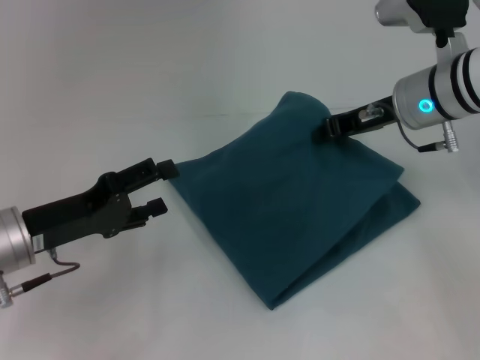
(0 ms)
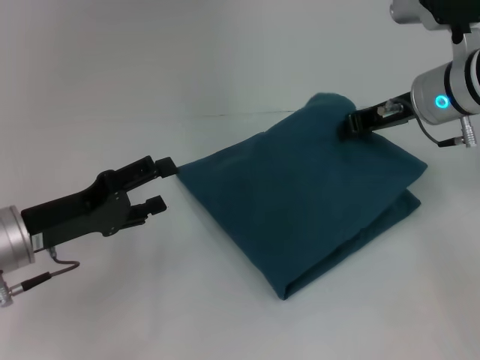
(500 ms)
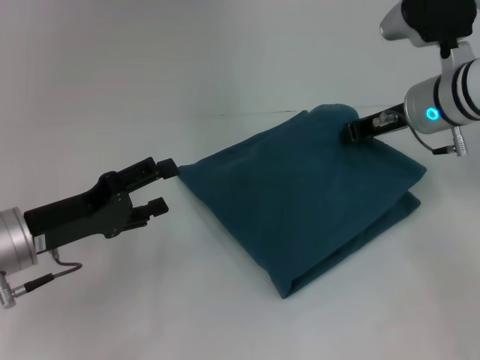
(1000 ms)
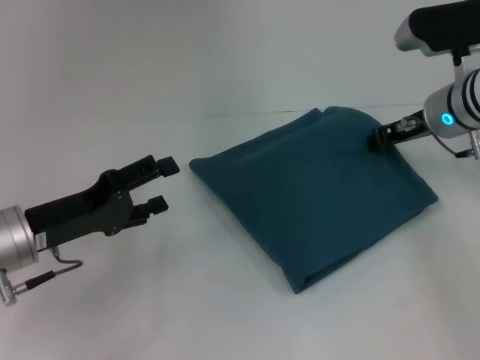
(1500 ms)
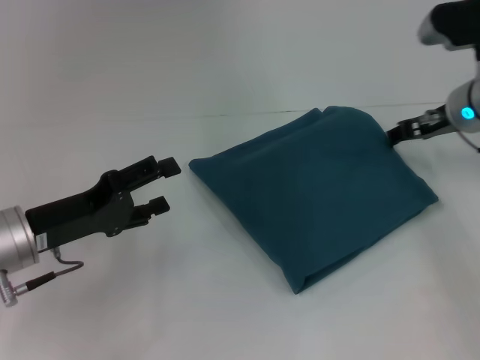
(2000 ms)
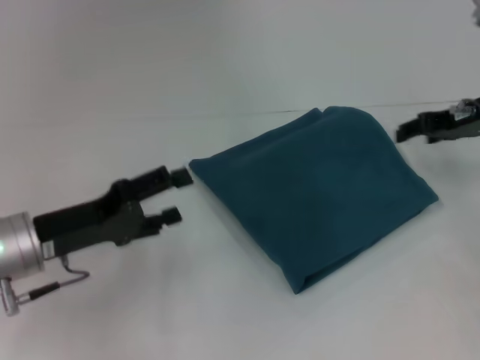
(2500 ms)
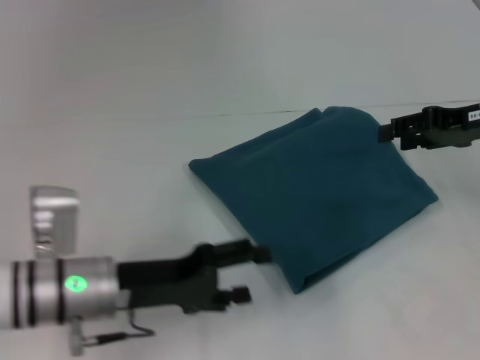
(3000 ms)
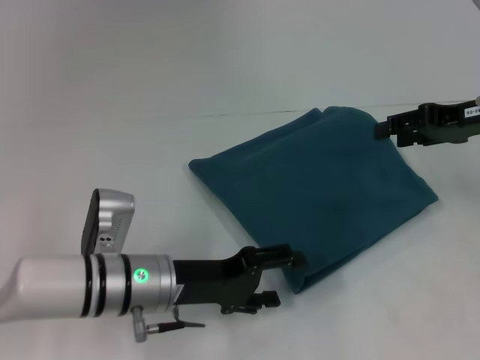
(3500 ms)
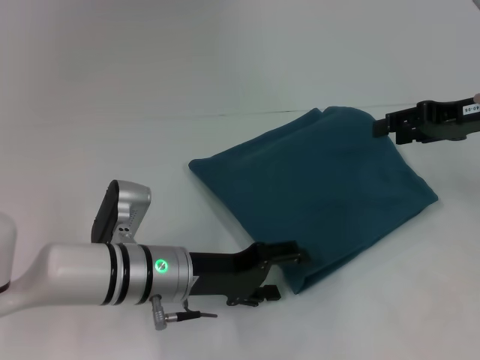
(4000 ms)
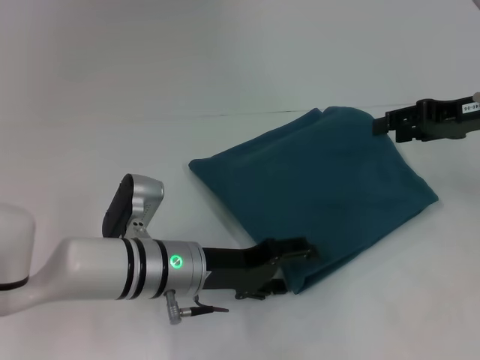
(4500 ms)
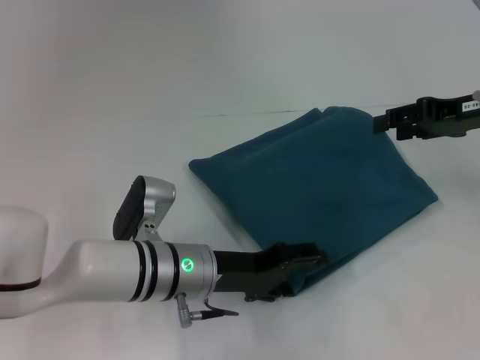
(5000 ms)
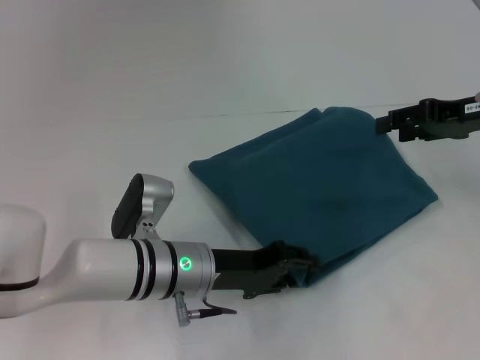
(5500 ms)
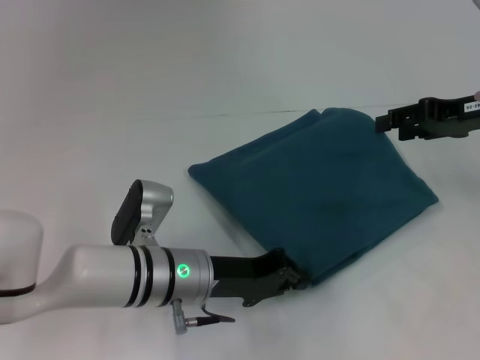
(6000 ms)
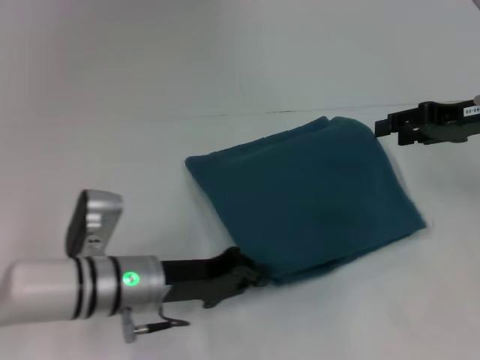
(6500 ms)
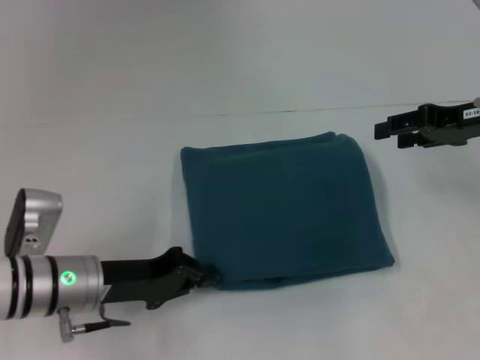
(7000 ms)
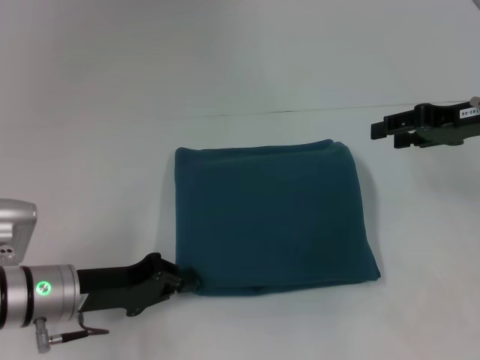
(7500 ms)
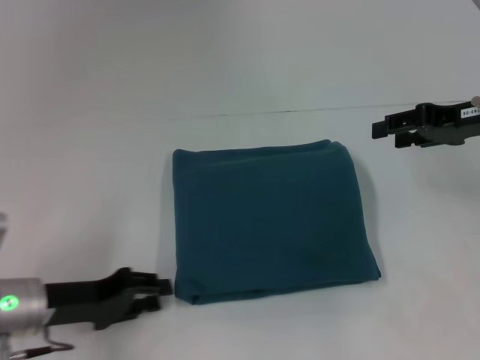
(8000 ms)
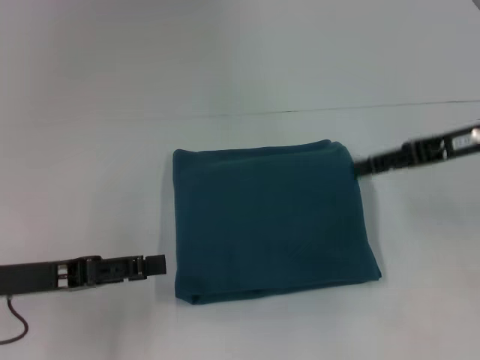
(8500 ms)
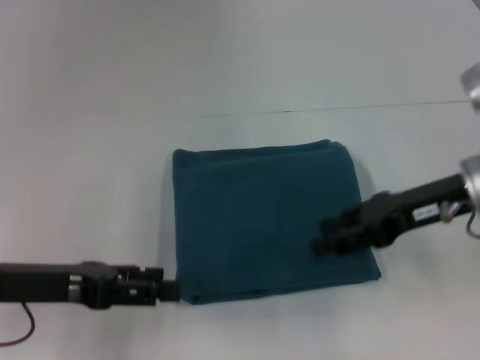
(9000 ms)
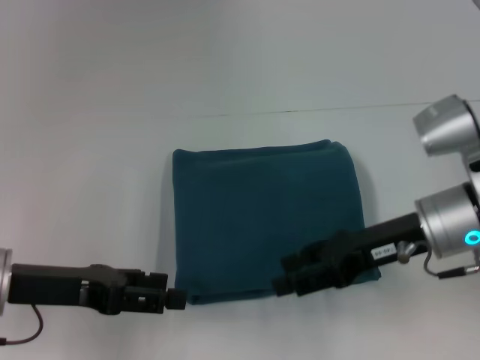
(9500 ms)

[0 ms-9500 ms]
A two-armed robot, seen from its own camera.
0 ms to 2000 ms: The right gripper shifts about 5 cm to the right, and opens.
2000 ms to 4000 ms: The right gripper heads backward, covering some 5 cm. The left gripper goes roughly 15 cm to the right.
4000 ms to 5500 ms: The grippers move only a little.
5500 ms to 7500 ms: The left gripper moves to the left, roughly 15 cm, and closes its fingers.
7500 ms to 9500 ms: The right gripper heads to the left, backward and downward, covering some 15 cm. Meanwhile the left gripper goes about 5 cm upward, and opens.

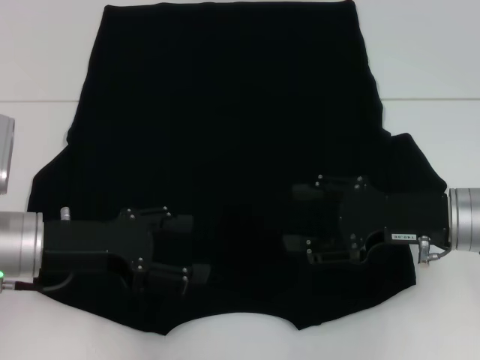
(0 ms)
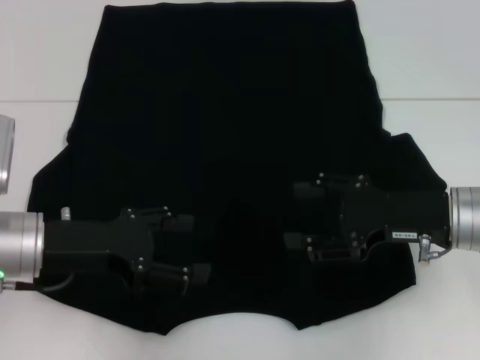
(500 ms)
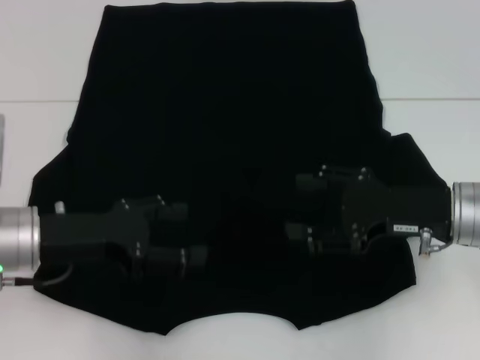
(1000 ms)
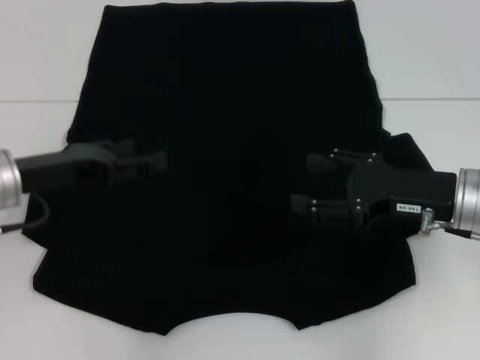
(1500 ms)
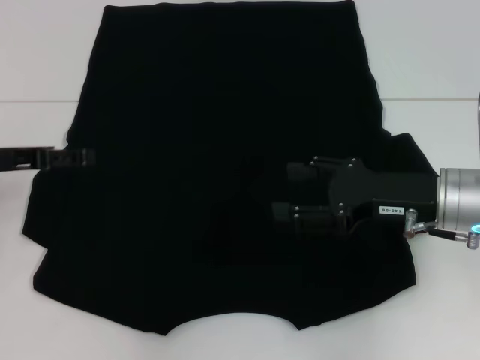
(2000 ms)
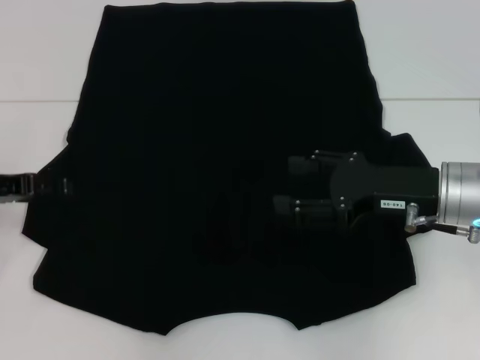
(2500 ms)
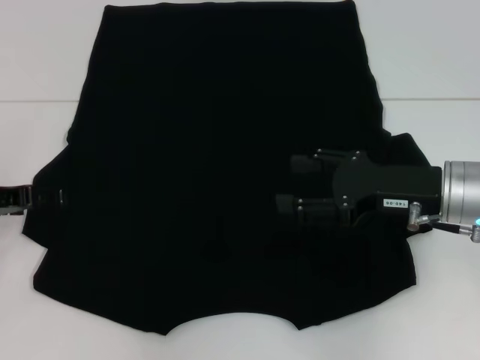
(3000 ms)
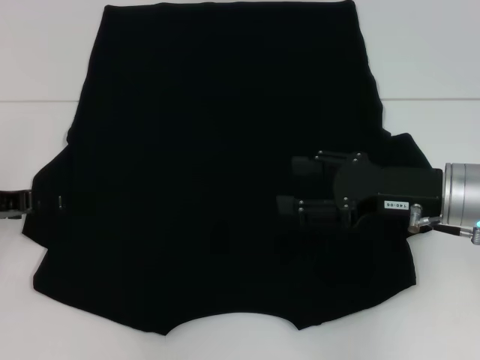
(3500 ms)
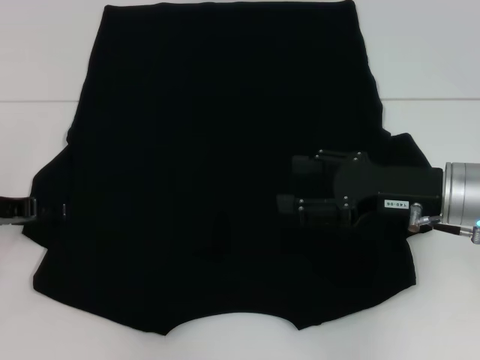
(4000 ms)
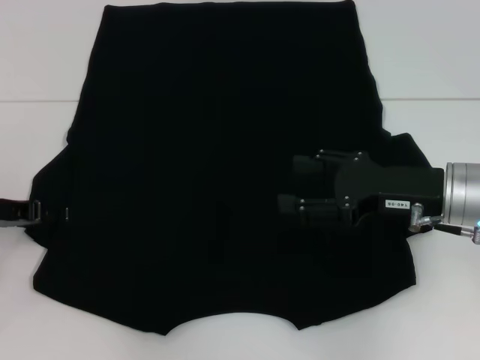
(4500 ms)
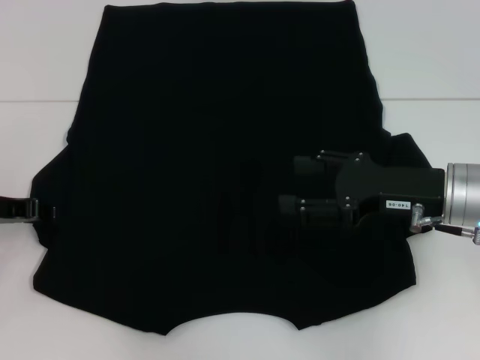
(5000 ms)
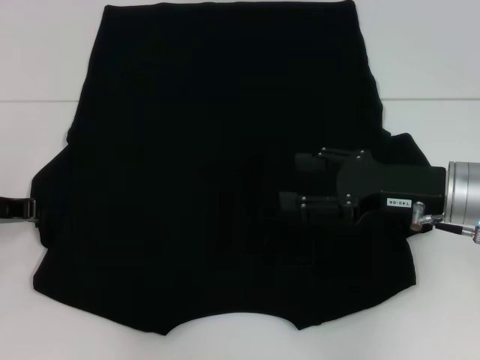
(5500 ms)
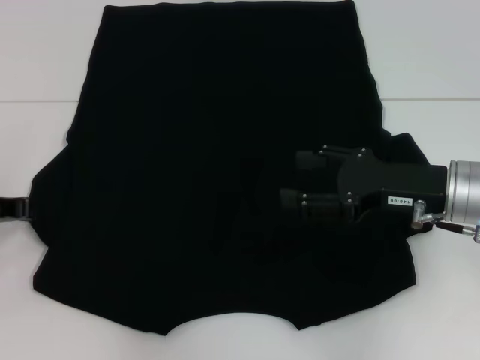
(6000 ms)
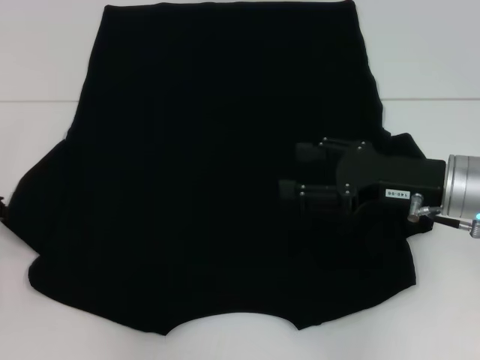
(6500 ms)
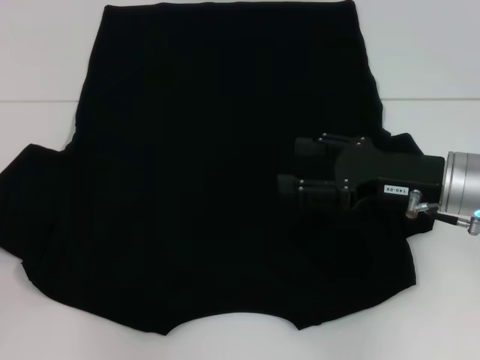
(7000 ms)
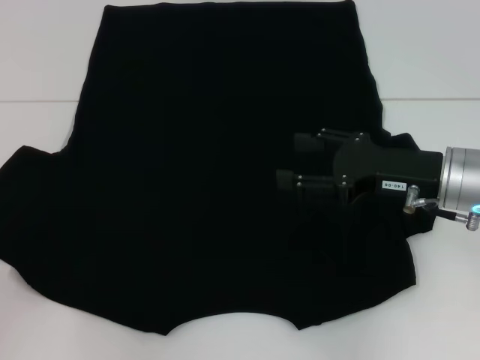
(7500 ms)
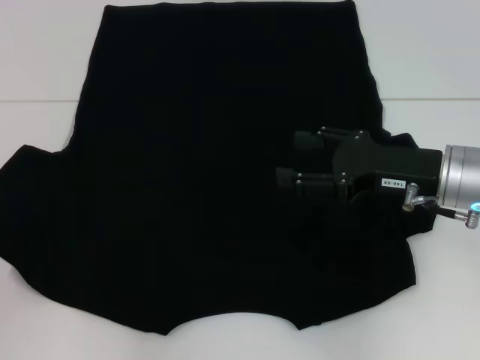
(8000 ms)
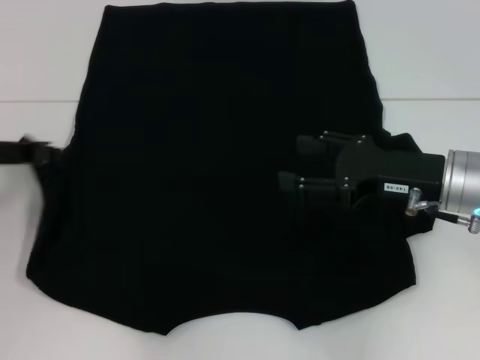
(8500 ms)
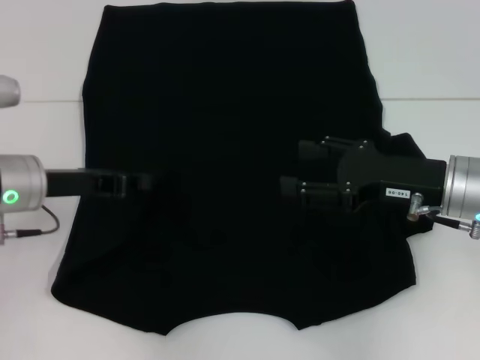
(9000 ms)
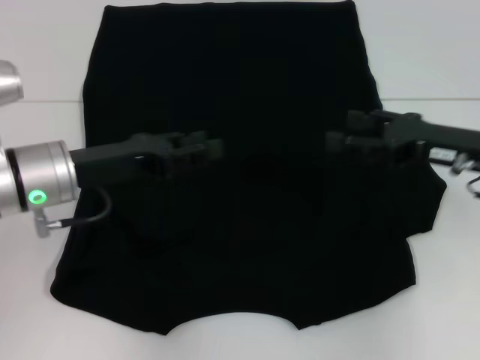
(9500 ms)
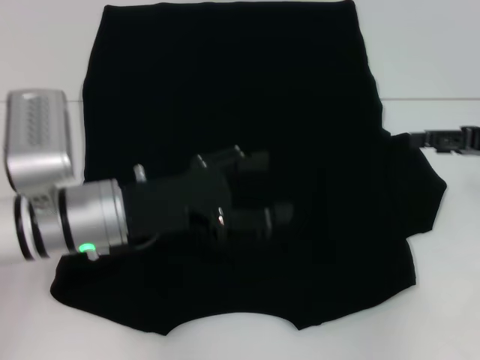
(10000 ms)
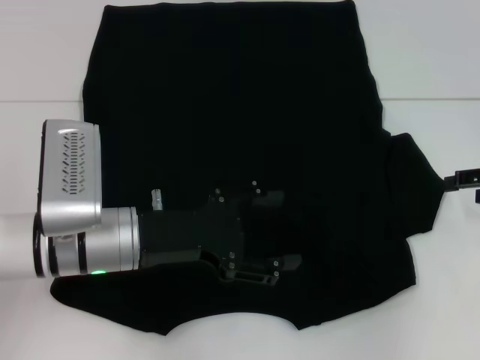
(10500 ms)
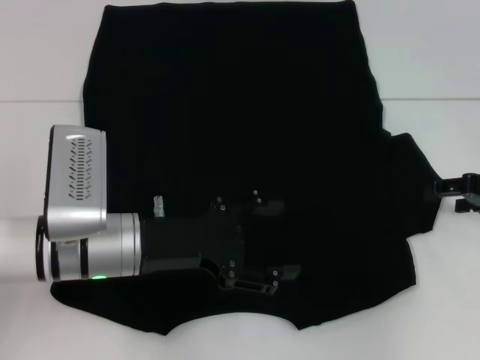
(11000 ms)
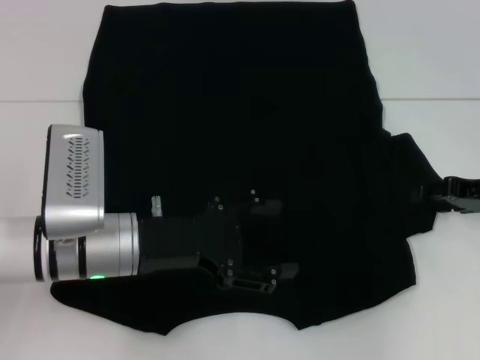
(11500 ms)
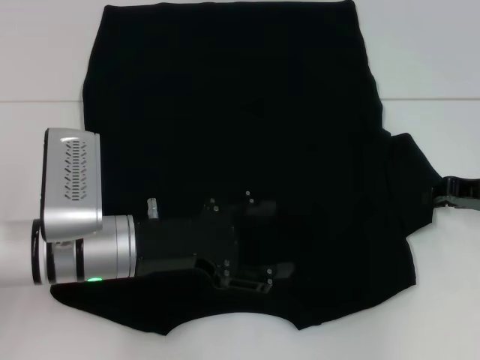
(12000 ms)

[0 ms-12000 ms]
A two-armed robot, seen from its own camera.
Step, 0 ms to 9000 ms: Fold the bottom left sleeve with your left hand.
0 ms to 2000 ms: The left gripper heads to the left and forward, covering roughly 10 cm.
6000 ms to 8000 ms: The left gripper shifts approximately 5 cm to the left.
8000 ms to 10000 ms: The left gripper moves to the right, about 20 cm, and opens, while the right gripper moves to the right, some 10 cm.
10000 ms to 12000 ms: The right gripper moves downward, roughly 5 cm, and closes its fingers.

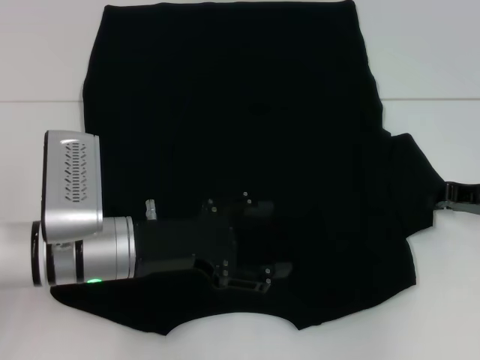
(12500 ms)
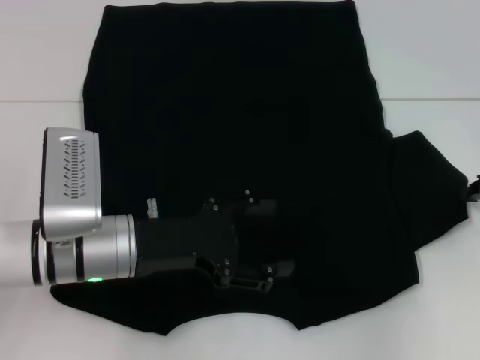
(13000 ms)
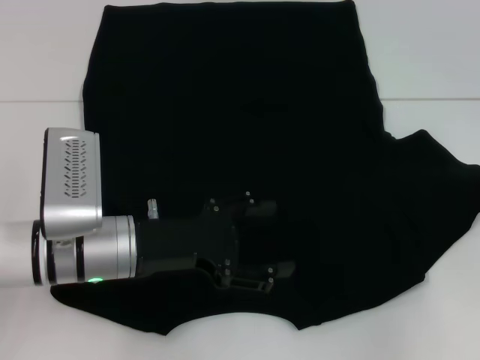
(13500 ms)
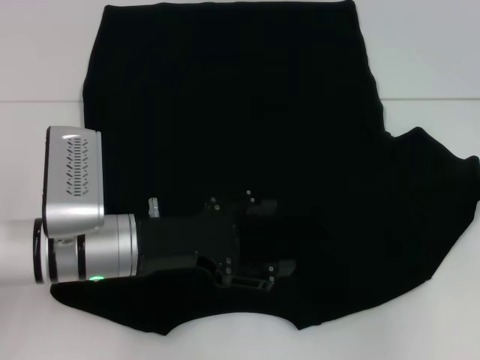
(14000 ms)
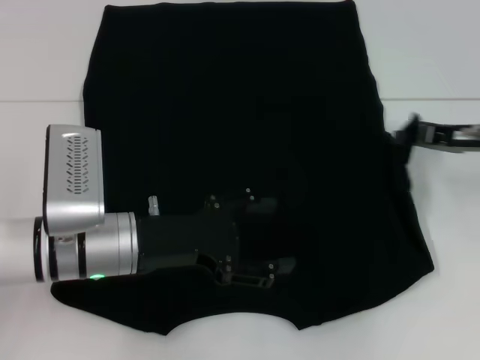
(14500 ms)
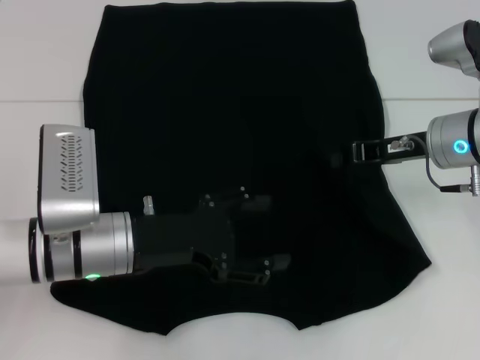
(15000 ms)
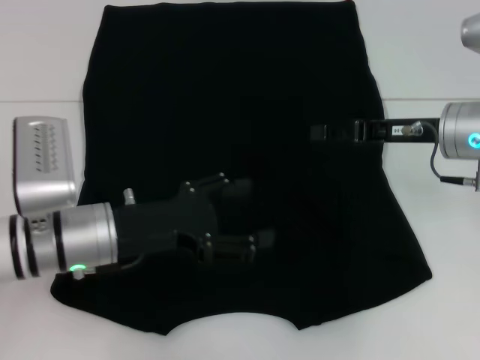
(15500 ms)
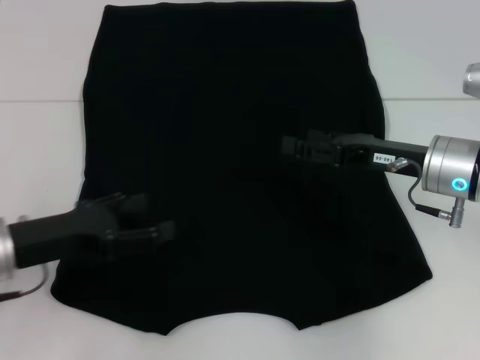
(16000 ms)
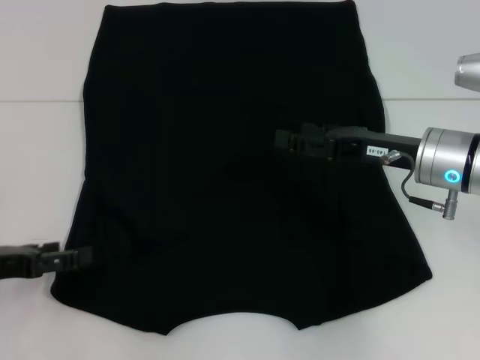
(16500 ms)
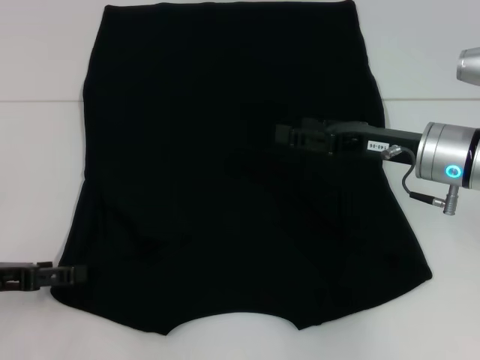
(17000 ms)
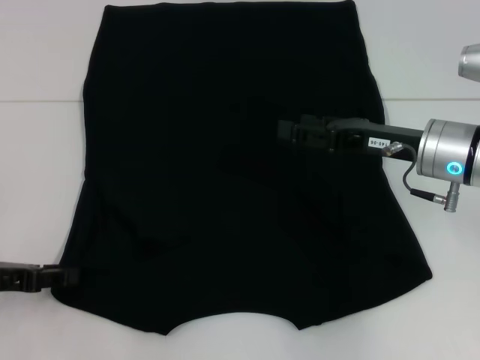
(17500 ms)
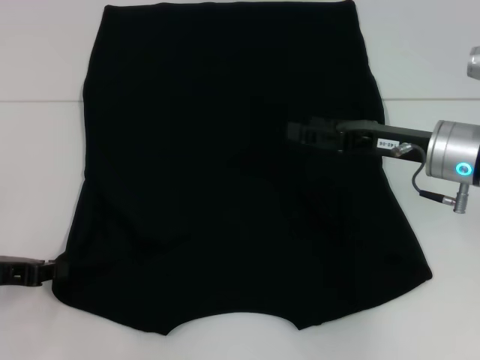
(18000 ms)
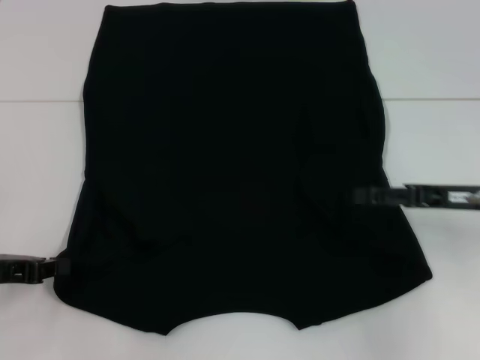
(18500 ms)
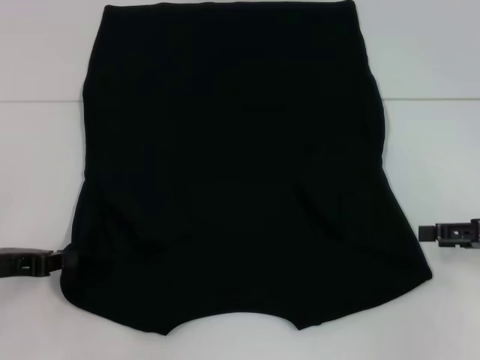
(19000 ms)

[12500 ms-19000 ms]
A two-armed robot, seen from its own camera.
Step, 12500 ms to 15500 ms: Fold the bottom right sleeve with your right hand.
12500 ms to 14500 ms: The right gripper changes place by approximately 5 cm.
14500 ms to 17000 ms: The right gripper goes approximately 10 cm to the left, and opens, while the left gripper shifts approximately 15 cm to the left.
17000 ms to 19000 ms: The right gripper travels to the right and backward by approximately 15 cm. The left gripper closes up.
